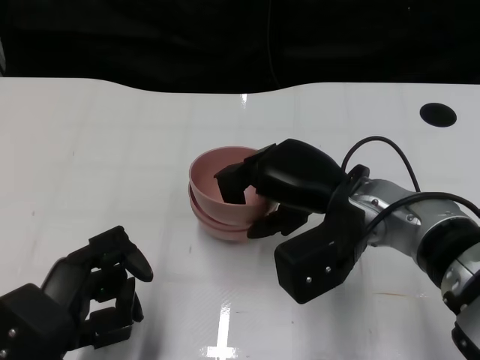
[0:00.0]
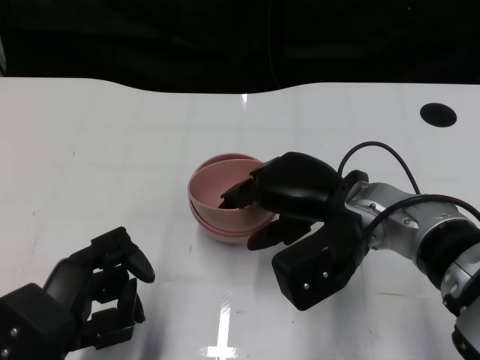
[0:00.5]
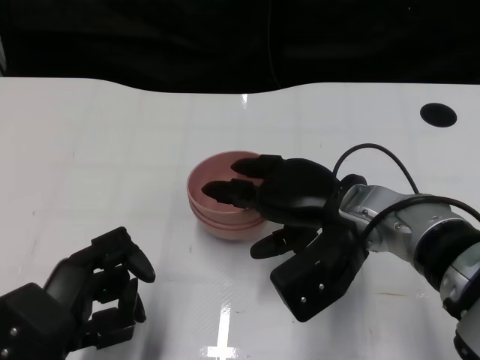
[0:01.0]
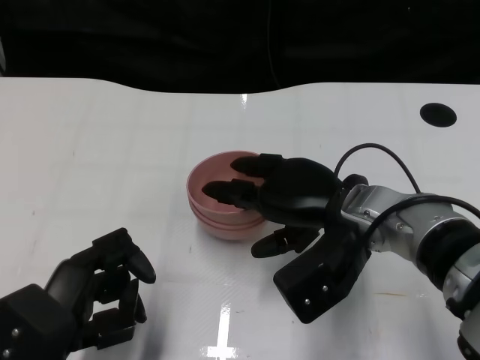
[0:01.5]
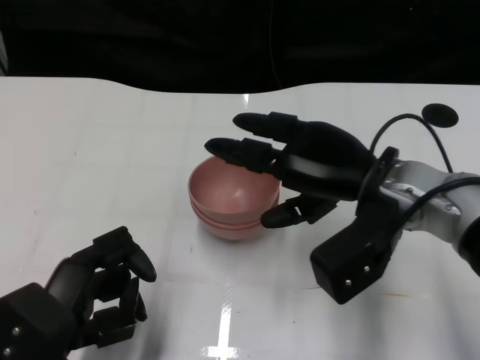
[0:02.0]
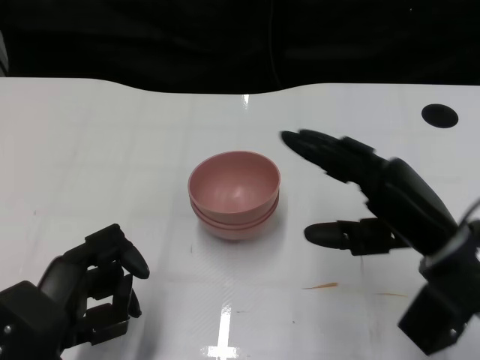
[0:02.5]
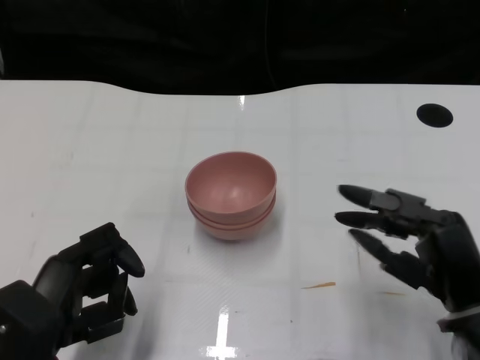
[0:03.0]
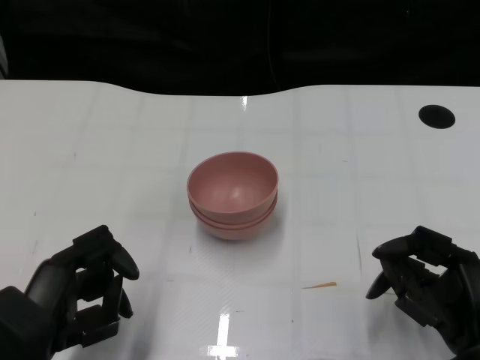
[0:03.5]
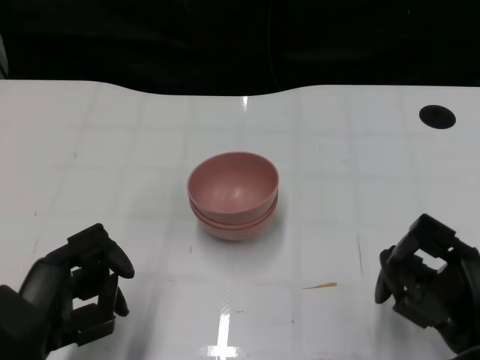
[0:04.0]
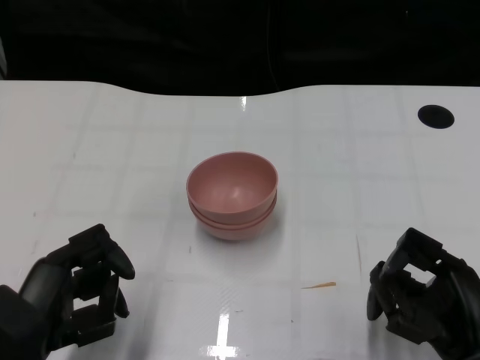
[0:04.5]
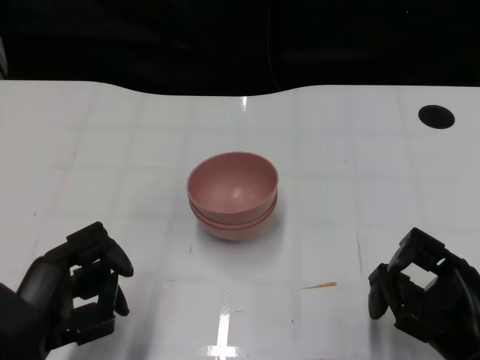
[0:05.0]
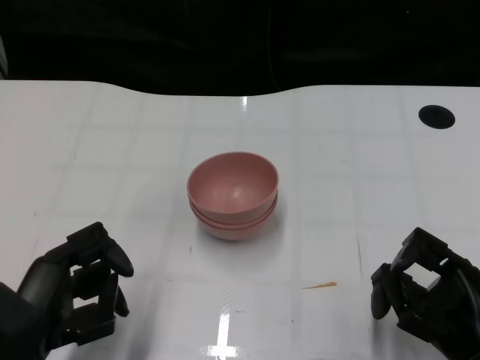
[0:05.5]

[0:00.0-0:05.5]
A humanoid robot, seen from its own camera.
Task of the whole recording: Pick up the bowl on one side of the table and place it on top of the middle bowl, then pick up the bowl on the other side of the table and place it on top of the middle bowls.
0:02.0 to 0:03.5: The right hand travels backward, downward and to the right by roughly 20 cm.
0:03.5 to 0:05.5: The hands stay close to where they were, moving slightly.

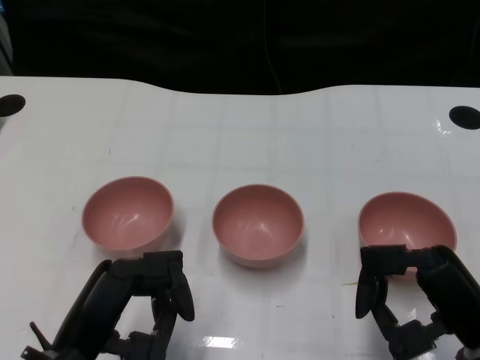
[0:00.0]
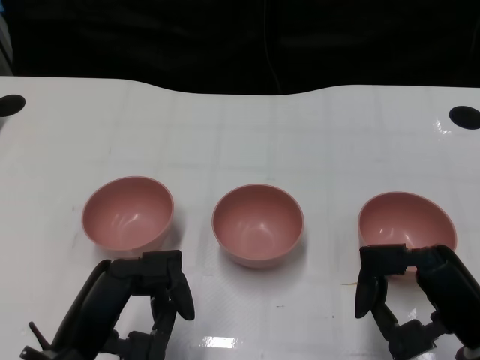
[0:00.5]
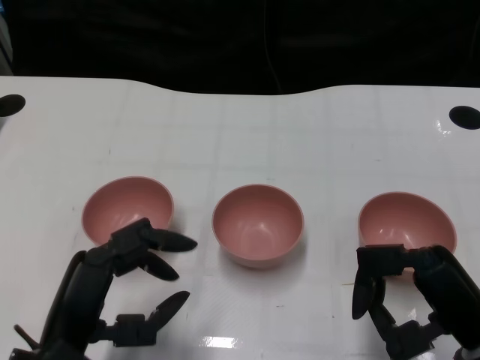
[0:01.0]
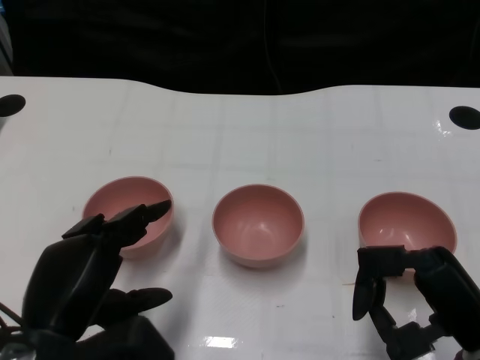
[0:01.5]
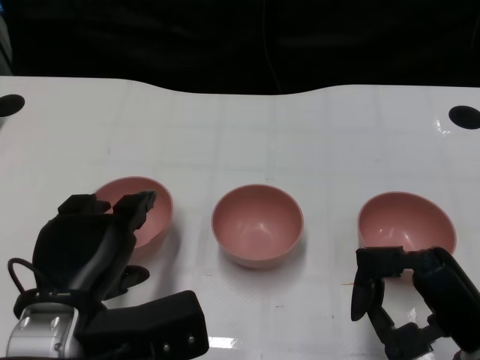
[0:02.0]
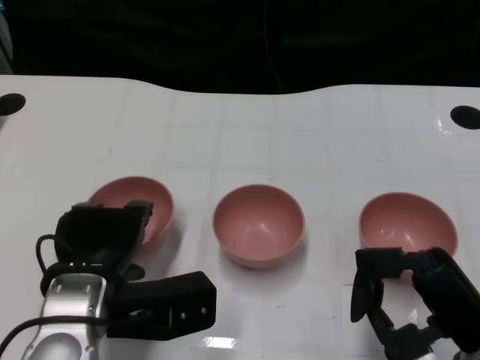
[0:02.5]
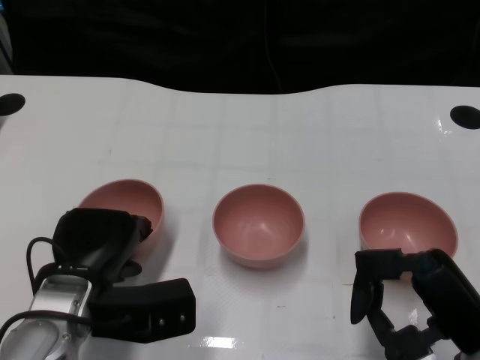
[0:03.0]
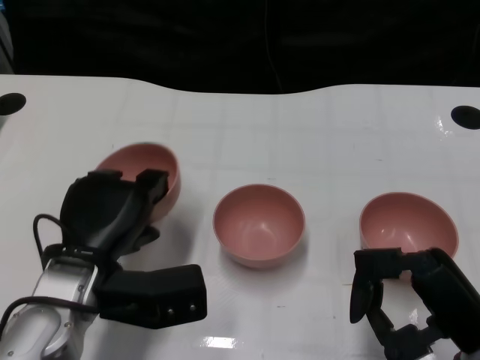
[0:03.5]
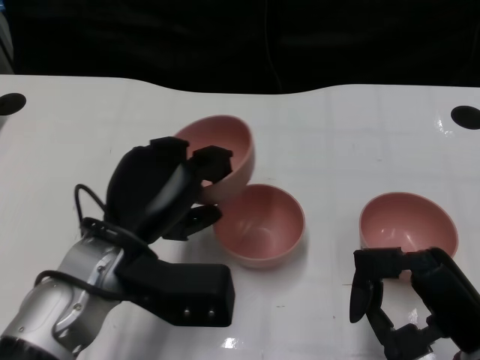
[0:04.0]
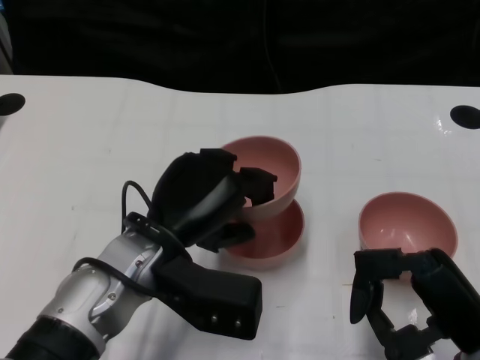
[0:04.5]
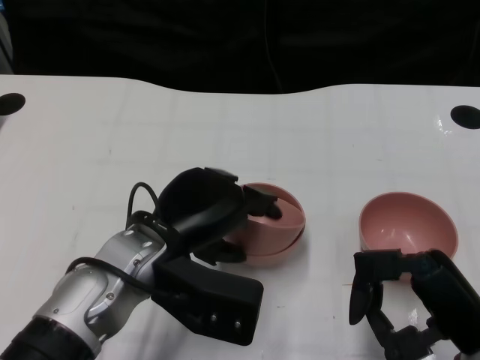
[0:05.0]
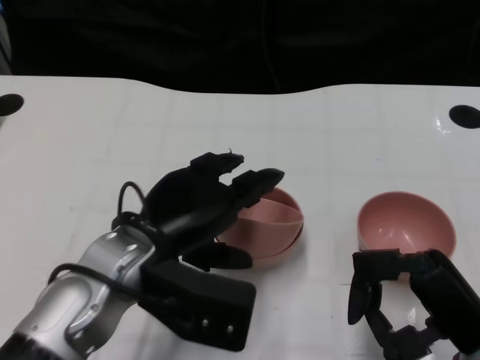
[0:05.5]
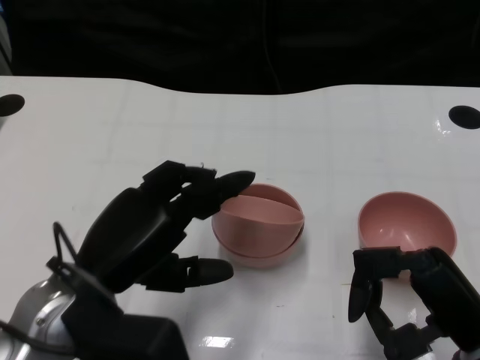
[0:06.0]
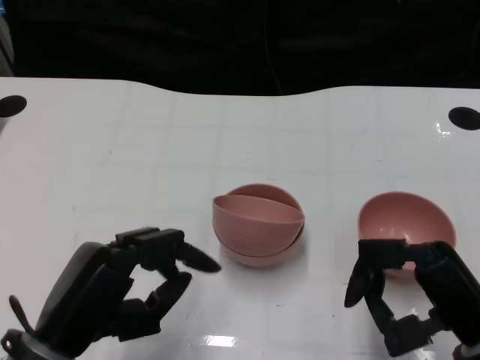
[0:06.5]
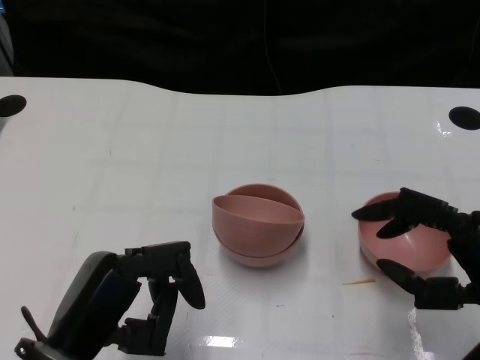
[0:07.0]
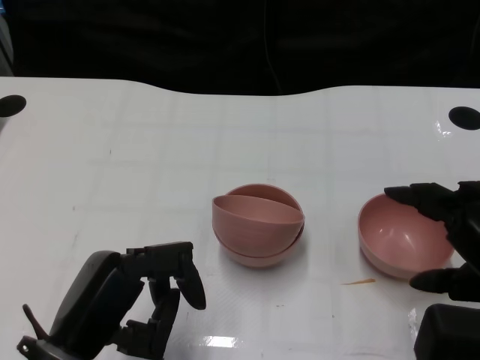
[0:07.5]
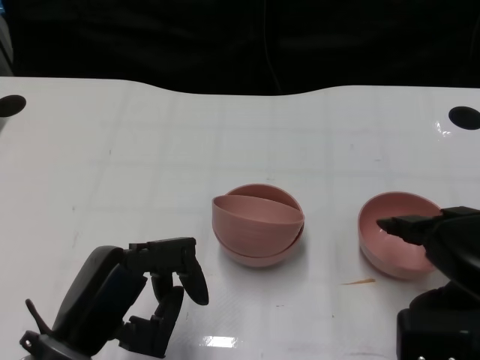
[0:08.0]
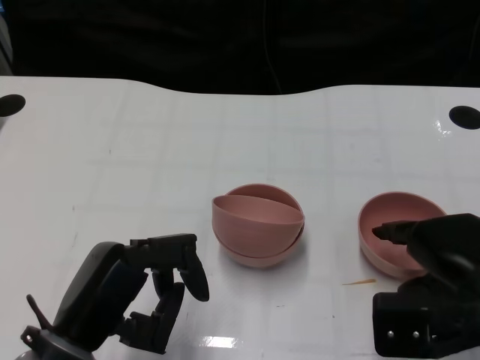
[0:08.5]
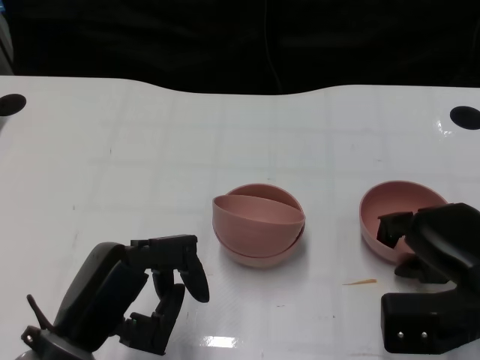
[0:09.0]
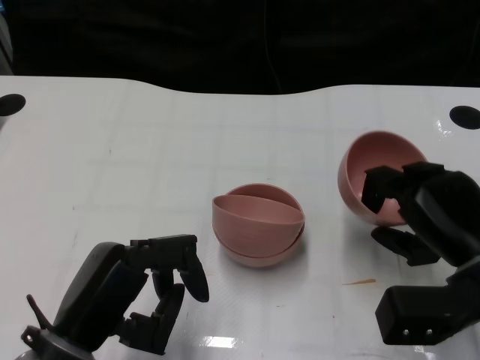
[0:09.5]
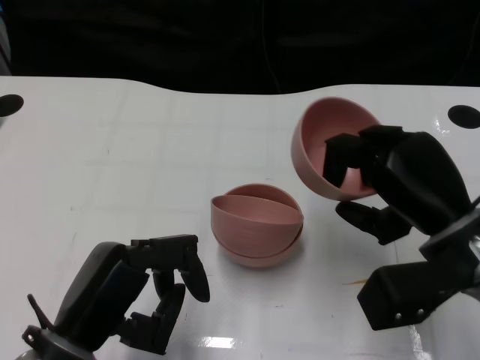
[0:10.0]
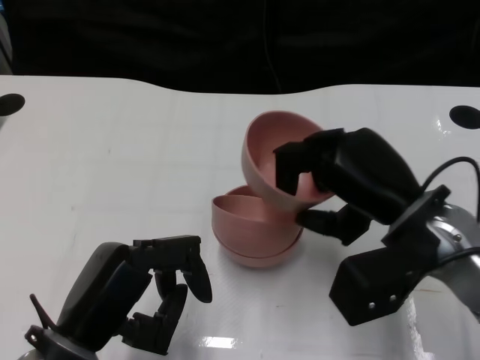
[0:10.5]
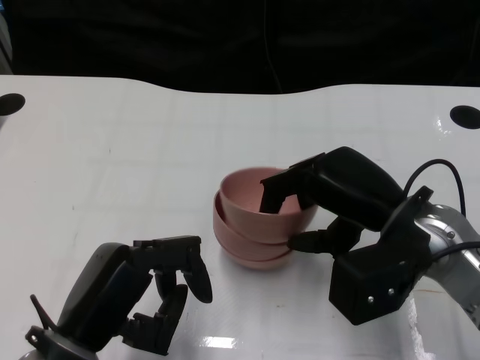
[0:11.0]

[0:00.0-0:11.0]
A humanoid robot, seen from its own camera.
Task of the whole recording: Pick up the bowl on one side of the table and place it on top of the middle bowl, then pick up the bowl on the other side of the table and place it on top of the middle bowls.
Step, 0:01.0 to 0:03.0: Grasp the bowl on the left with the left gripper.
Step, 0:03.5 to 0:05.5: Place the bowl on the left onto the bowl in the middle with left gripper.
Step, 0:06.0 to 0:09.0: Grasp the bowl on the right with the right gripper.
0:02.0 to 0:03.5: The left hand travels forward by roughly 5 cm.
0:03.5 to 0:05.5: The left hand moves some 5 cm.
0:05.5 to 0:07.5: The left hand goes approximately 10 cm backward and to the left; the right hand heads upward, covering approximately 10 cm.
0:07.5 to 0:09.0: The right hand is displaced downward and forward by about 10 cm.
0:09.0 to 0:11.0: The right hand goes roughly 10 cm to the left and upward.

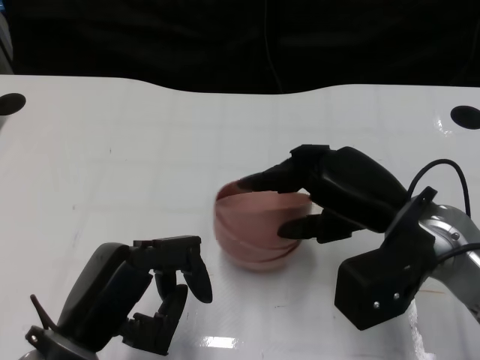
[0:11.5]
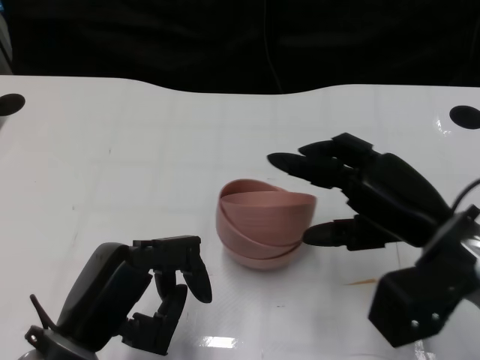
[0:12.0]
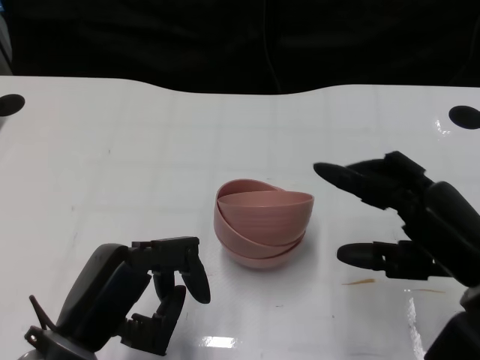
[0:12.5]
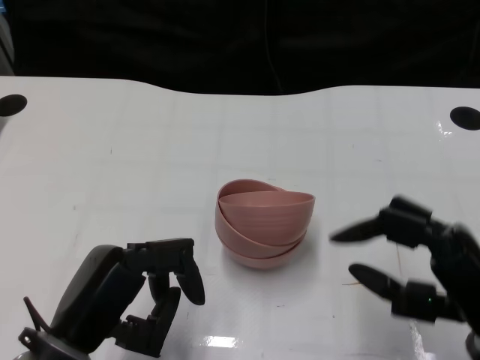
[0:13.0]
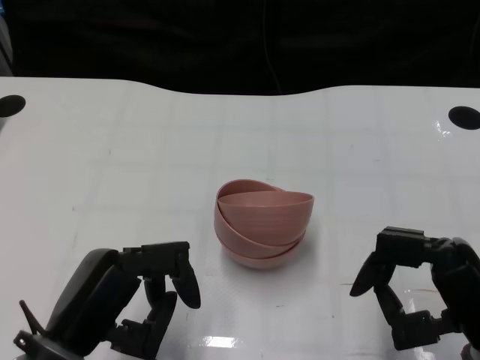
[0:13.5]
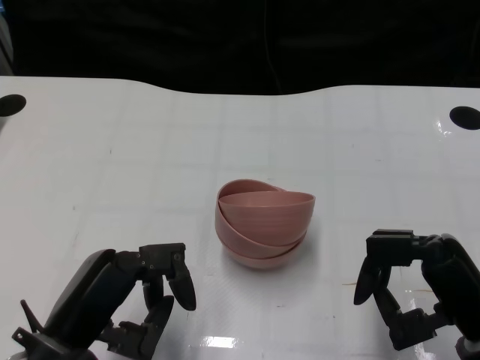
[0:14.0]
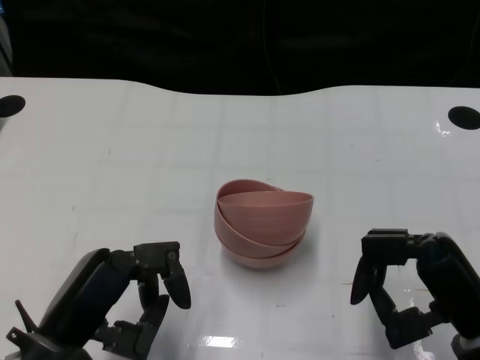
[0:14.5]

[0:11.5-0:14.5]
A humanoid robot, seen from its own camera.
Task of the whole recording: Pick up the bowl on one side of the table and place it on top of the middle bowl, then pick up the bowl on the other side of the table and place it on top of the middle bowls.
0:11.5 to 0:13.0: The right hand shifts about 10 cm backward and to the right.
0:13.0 to 0:14.5: The hands make only small movements.

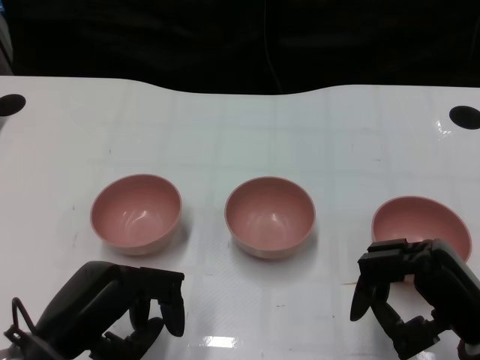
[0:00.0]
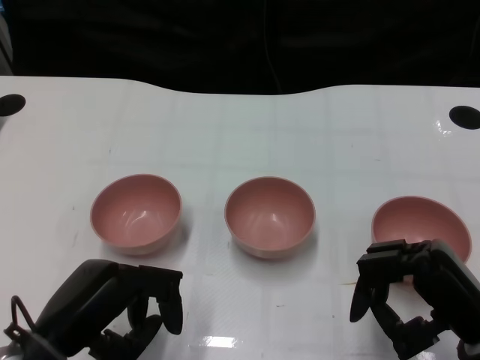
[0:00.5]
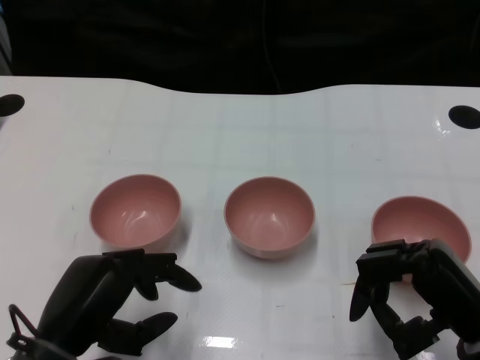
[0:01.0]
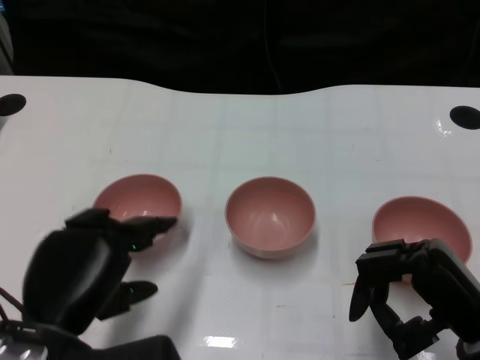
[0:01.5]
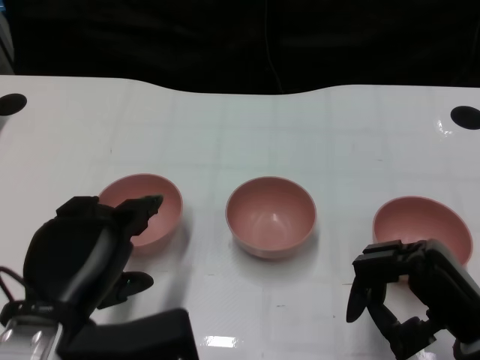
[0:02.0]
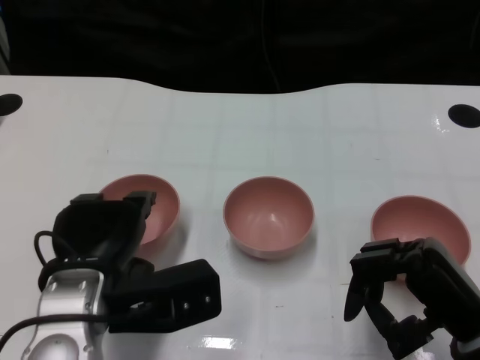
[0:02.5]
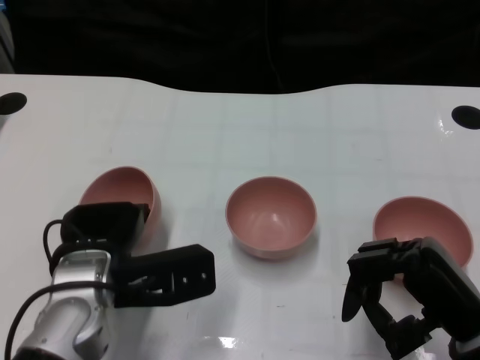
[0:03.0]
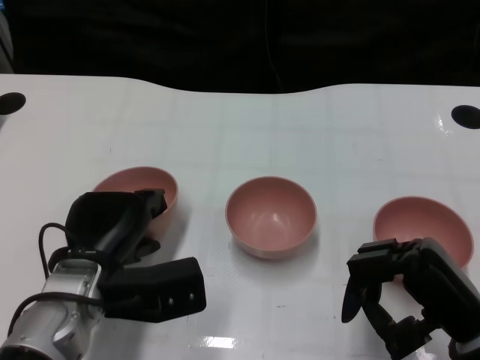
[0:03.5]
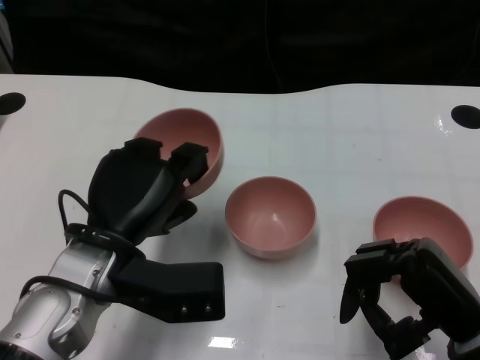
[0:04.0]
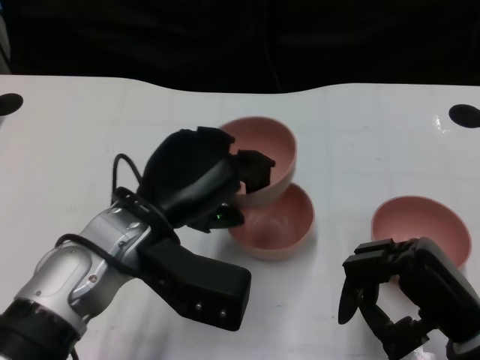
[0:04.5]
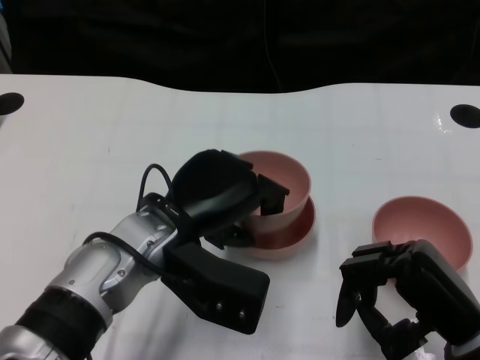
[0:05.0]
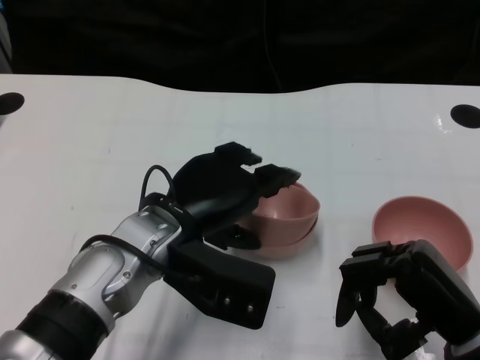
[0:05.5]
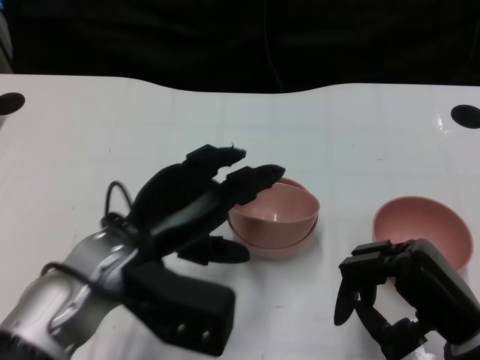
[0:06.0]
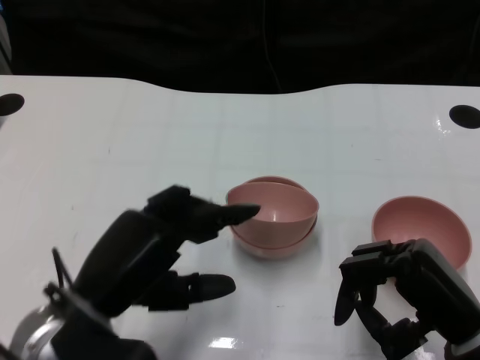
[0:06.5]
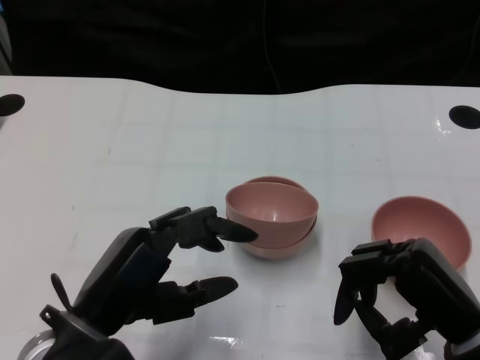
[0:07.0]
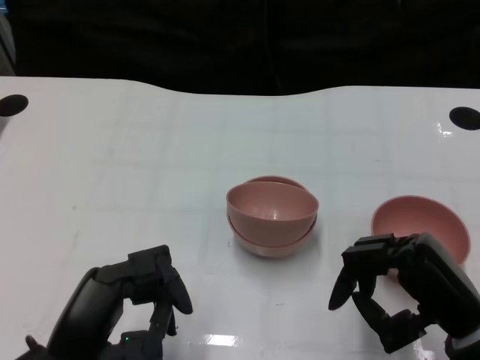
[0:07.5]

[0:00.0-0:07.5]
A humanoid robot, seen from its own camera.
Task of the whole recording: Pick up the bowl on one side of the table and place it on top of the middle bowl, then pick up the bowl on the other side of the table and place it on top of the middle bowls.
Step, 0:01.0 to 0:03.5: Grasp the bowl on the left with the left gripper.
Step, 0:04.0 to 0:05.5: Place the bowl on the left onto the bowl in the middle with left gripper.
0:02.0 to 0:04.0: The left hand heads forward, covering roughly 10 cm.
0:04.0 to 0:05.5: The left hand moves to the right, approximately 5 cm.
0:05.5 to 0:07.5: The left hand is displaced backward and to the left by about 15 cm.
